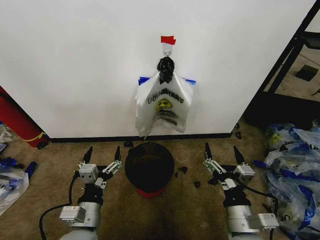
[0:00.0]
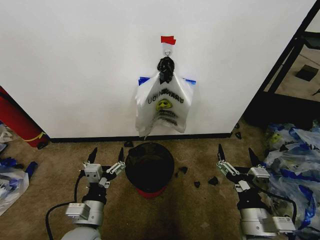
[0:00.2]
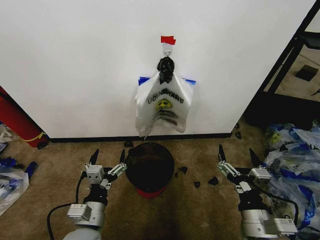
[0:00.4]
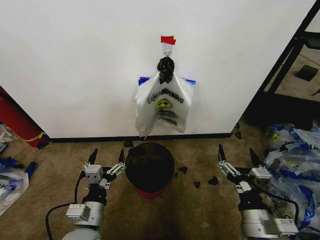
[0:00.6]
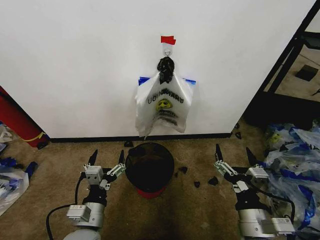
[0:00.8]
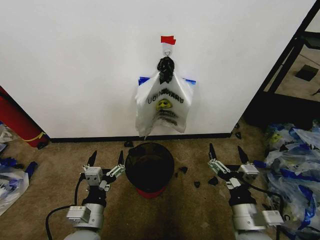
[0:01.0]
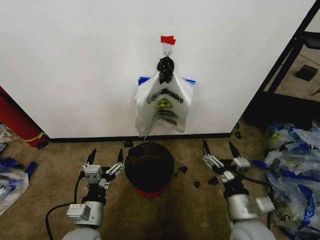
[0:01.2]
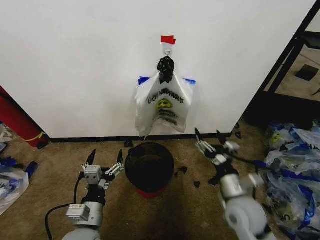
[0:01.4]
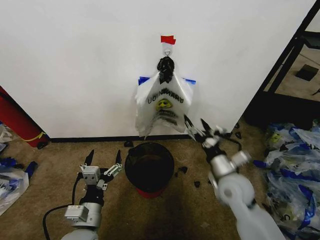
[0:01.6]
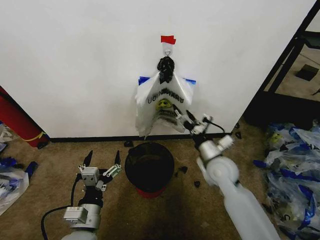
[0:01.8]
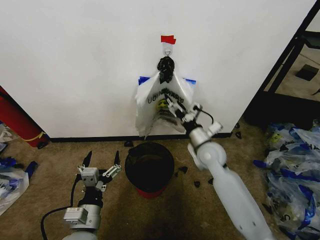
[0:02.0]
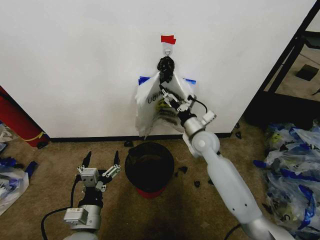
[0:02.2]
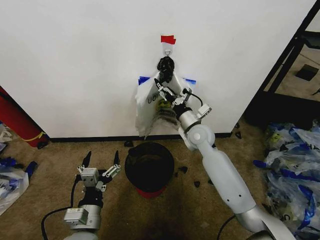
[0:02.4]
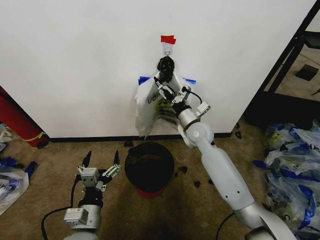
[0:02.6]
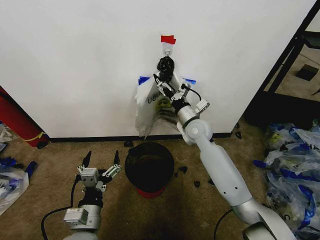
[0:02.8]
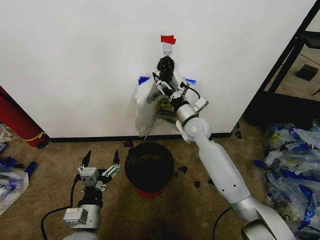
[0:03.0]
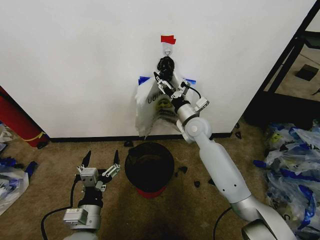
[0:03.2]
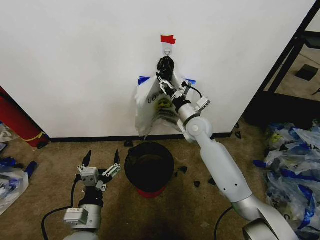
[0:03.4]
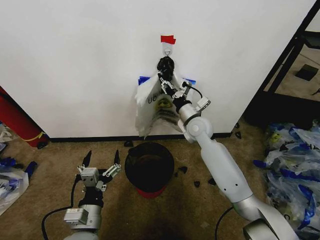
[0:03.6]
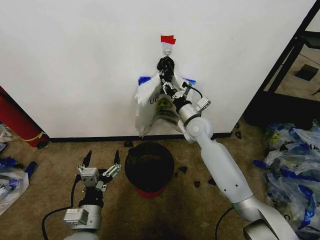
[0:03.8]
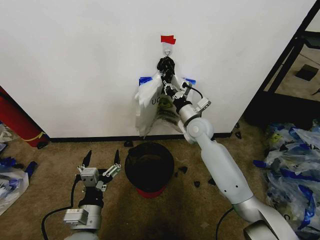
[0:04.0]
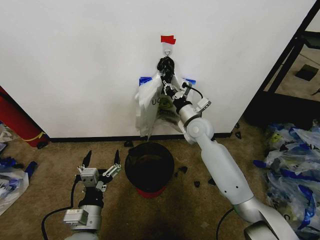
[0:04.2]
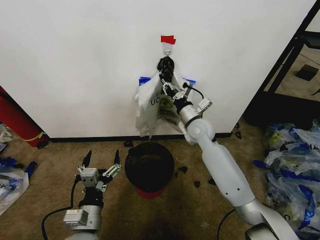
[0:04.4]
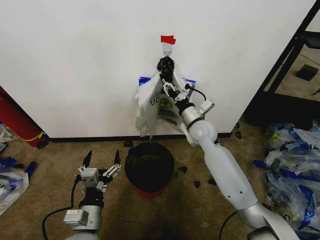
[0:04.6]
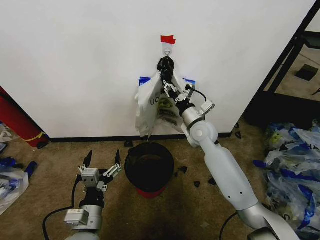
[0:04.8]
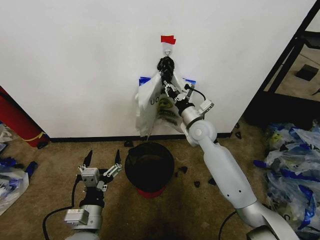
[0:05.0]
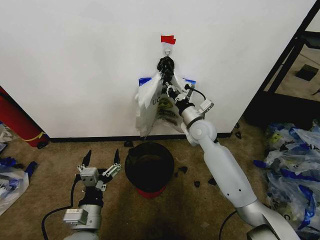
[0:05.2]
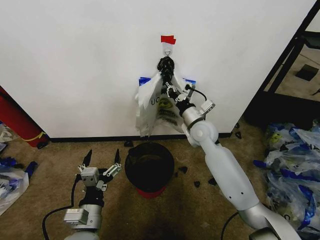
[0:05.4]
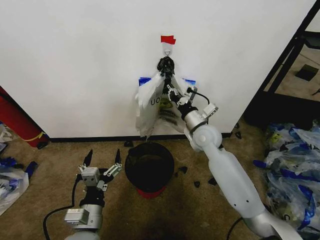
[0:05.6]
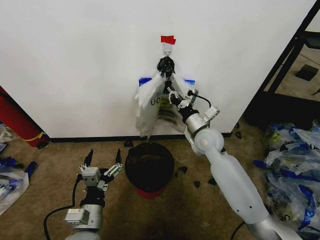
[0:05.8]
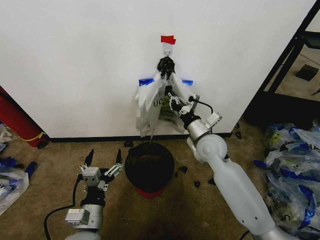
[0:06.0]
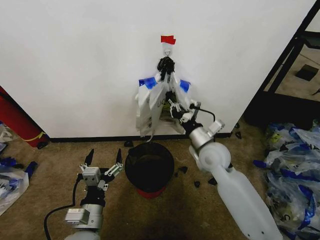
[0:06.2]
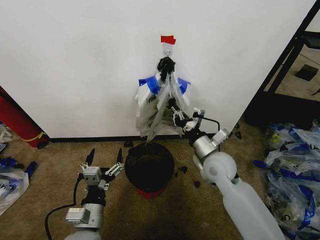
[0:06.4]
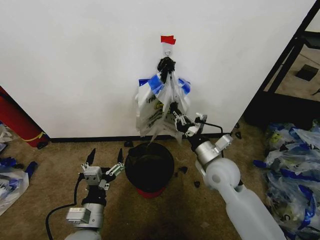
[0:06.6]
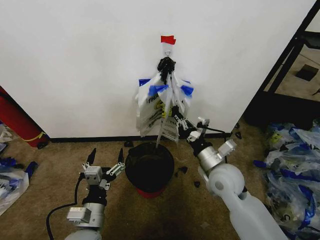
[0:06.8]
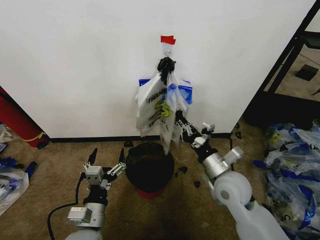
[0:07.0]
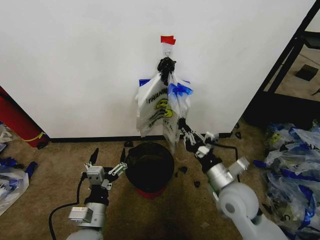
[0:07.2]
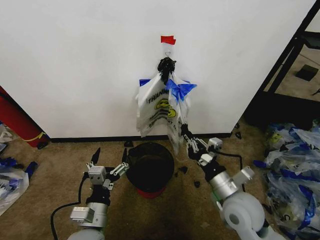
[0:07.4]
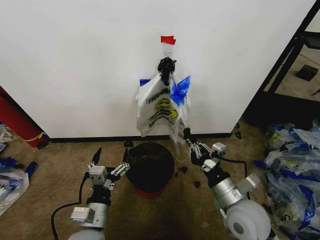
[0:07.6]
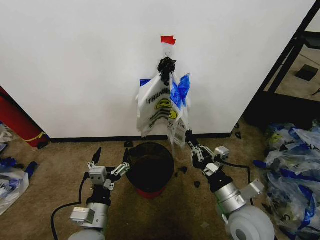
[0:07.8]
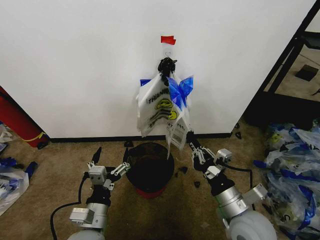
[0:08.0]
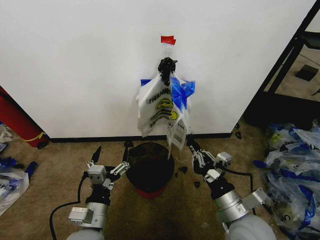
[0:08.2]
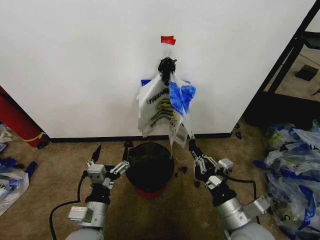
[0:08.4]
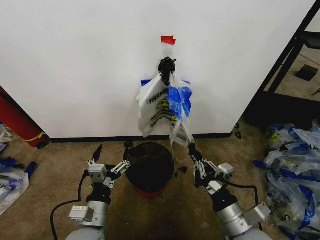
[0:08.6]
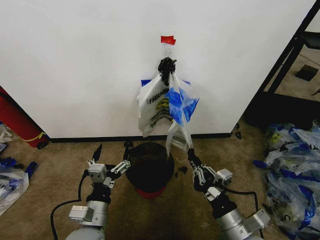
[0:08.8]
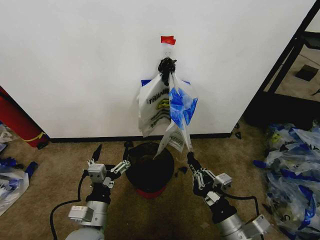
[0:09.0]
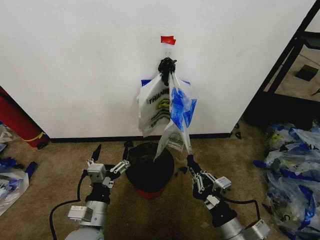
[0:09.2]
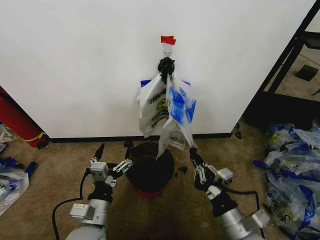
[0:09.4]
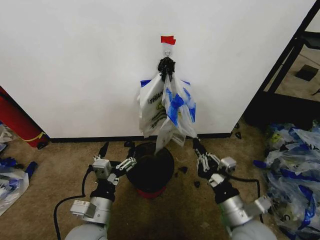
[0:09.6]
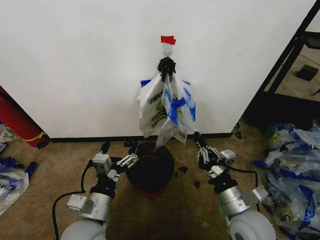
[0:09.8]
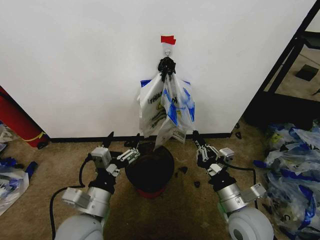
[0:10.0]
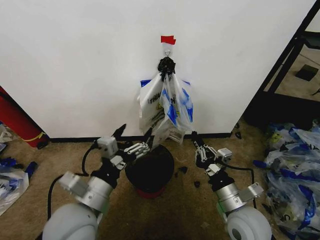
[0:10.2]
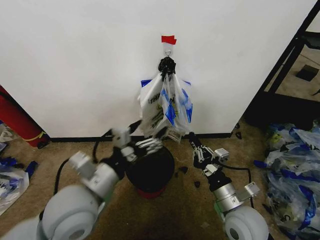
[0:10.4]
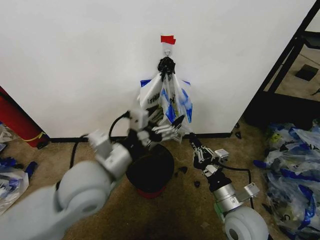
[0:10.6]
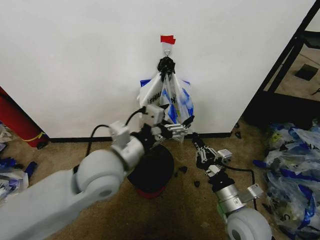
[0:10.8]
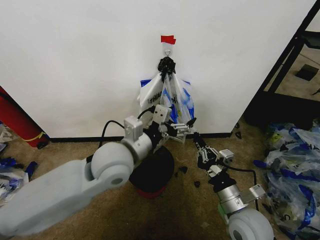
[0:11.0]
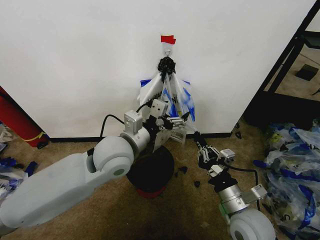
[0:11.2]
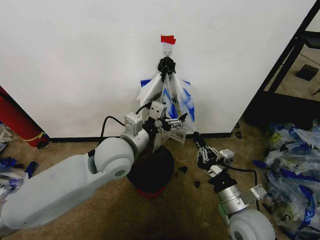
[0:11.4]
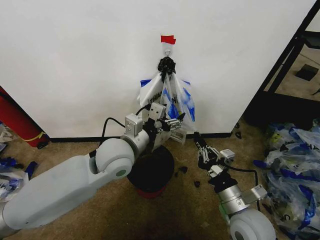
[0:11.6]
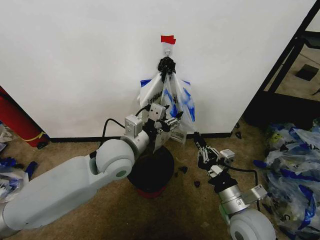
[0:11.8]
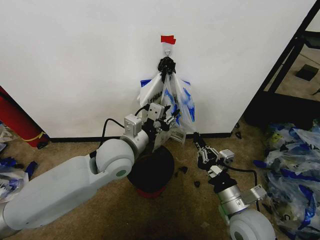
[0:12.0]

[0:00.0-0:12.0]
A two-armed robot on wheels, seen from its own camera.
Task of the whole recording: Pick up the garbage bag from the wall and place it over the trash bin.
0:01.6 to 0:03.0: The right gripper shifts some 20 cm forward and to the left.
0:03.0 to 0:04.4: The right gripper closes.
0:04.4 to 0:06.0: The right gripper moves backward, some 5 cm.
0:06.0 to 0:07.6: The right gripper travels backward by approximately 20 cm.
0:07.6 to 0:09.0: The right gripper heads backward, covering some 10 cm.
0:09.0 to 0:10.4: The left gripper moves upward, roughly 15 cm; the right gripper heads forward, covering about 10 cm.
0:10.4 to 0:12.0: The left gripper is displaced forward and to the right by some 15 cm, and closes.

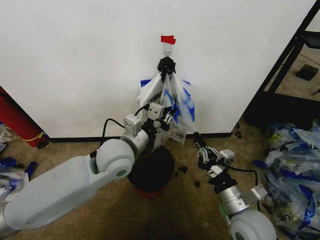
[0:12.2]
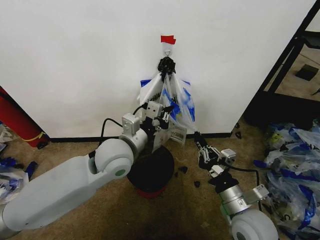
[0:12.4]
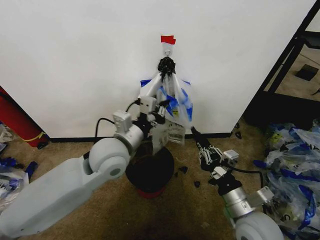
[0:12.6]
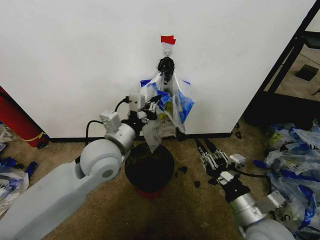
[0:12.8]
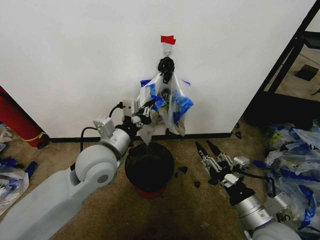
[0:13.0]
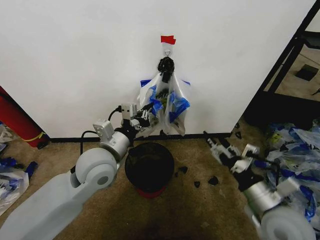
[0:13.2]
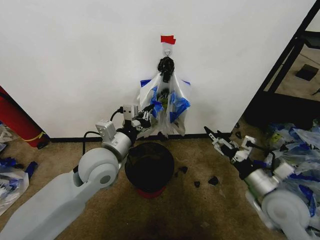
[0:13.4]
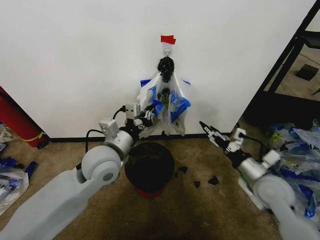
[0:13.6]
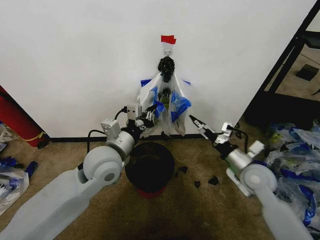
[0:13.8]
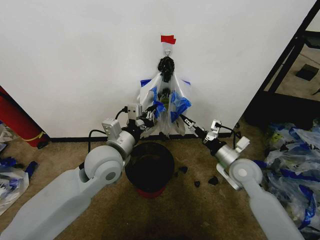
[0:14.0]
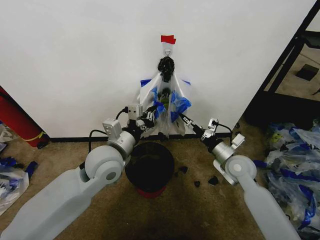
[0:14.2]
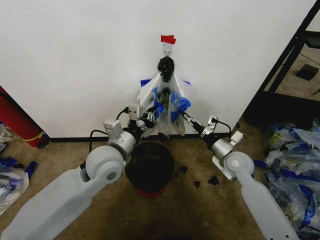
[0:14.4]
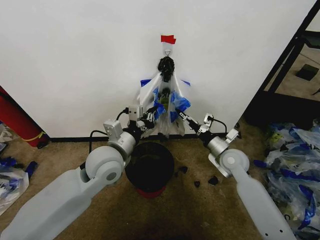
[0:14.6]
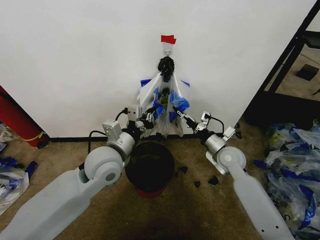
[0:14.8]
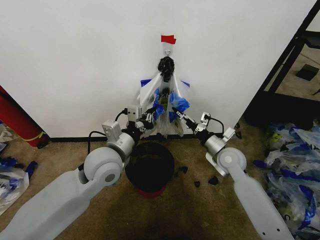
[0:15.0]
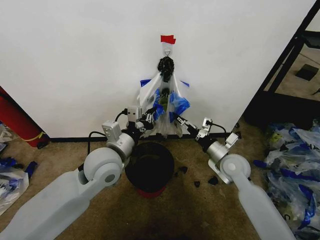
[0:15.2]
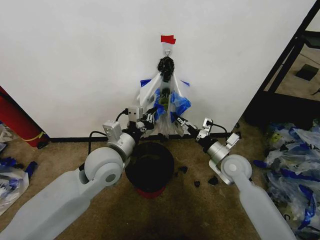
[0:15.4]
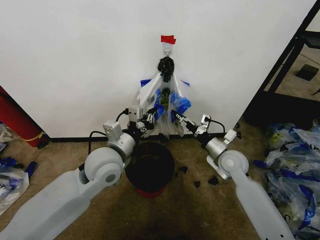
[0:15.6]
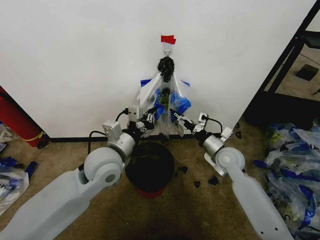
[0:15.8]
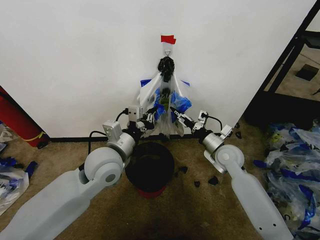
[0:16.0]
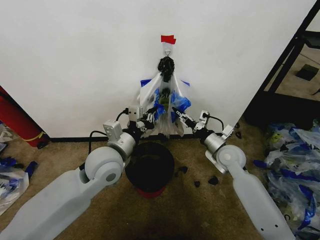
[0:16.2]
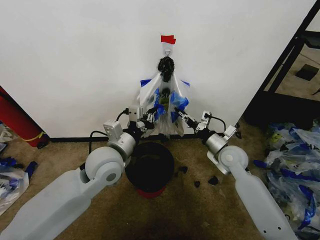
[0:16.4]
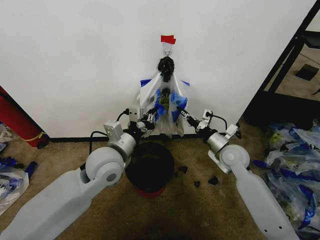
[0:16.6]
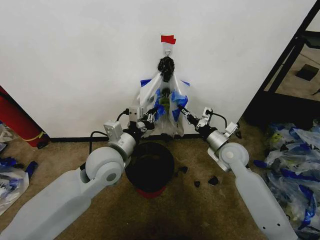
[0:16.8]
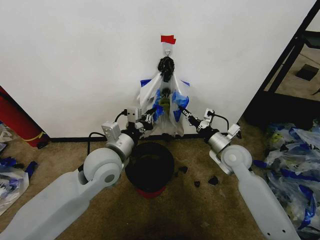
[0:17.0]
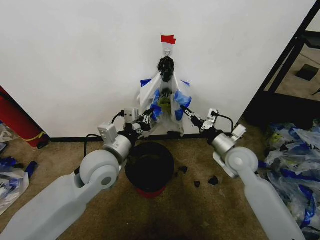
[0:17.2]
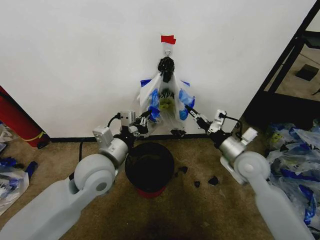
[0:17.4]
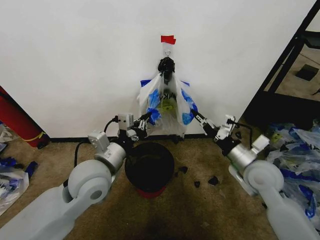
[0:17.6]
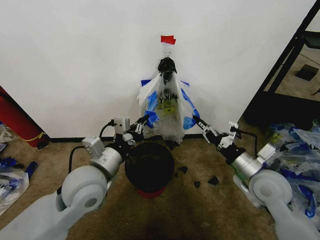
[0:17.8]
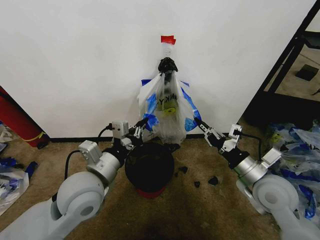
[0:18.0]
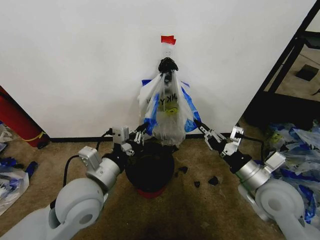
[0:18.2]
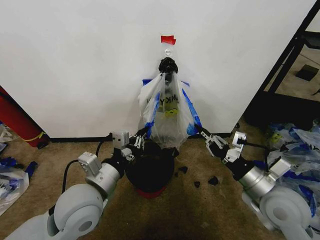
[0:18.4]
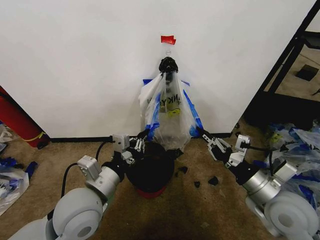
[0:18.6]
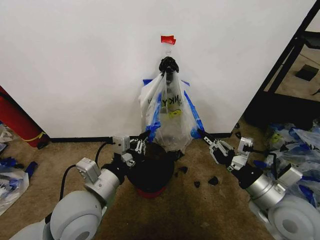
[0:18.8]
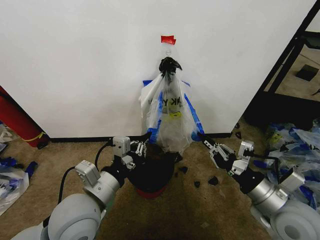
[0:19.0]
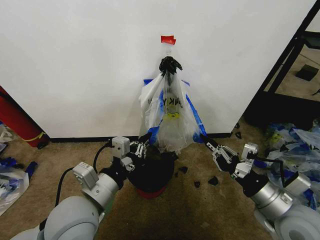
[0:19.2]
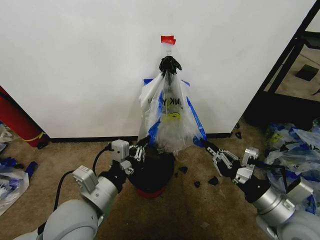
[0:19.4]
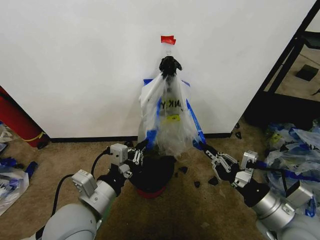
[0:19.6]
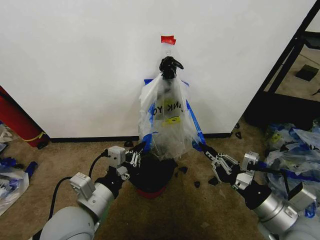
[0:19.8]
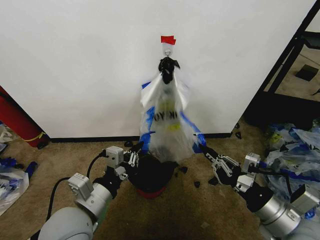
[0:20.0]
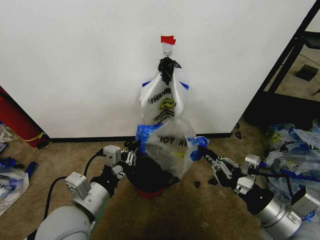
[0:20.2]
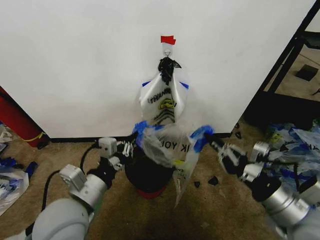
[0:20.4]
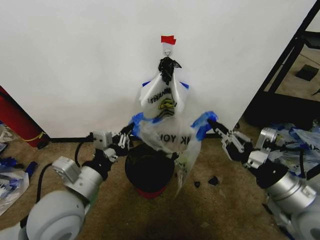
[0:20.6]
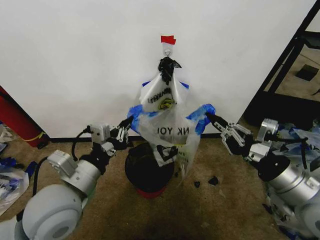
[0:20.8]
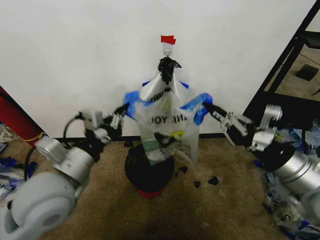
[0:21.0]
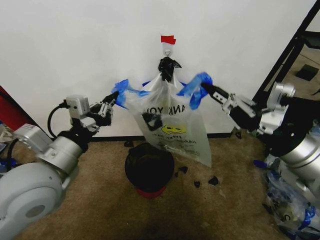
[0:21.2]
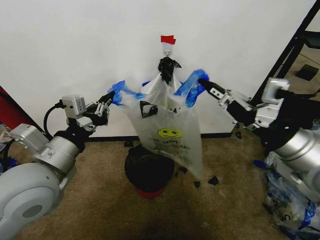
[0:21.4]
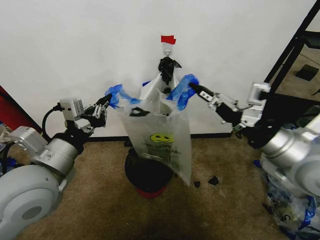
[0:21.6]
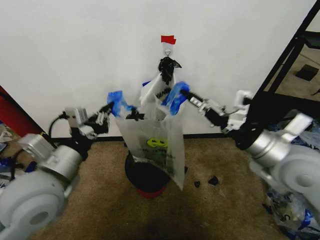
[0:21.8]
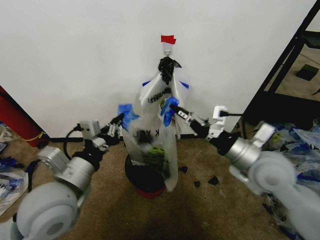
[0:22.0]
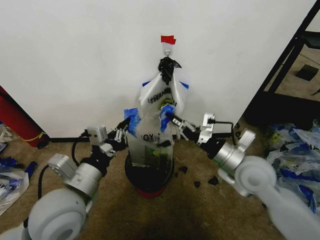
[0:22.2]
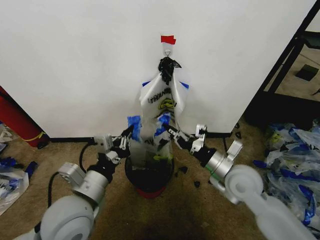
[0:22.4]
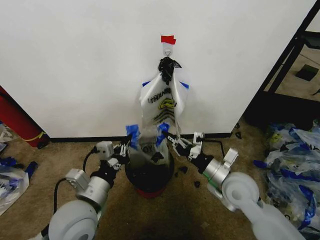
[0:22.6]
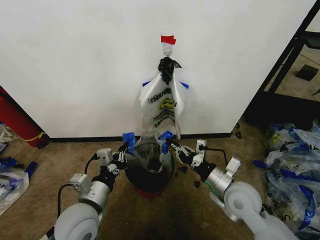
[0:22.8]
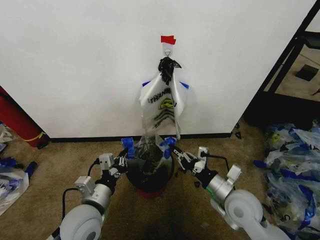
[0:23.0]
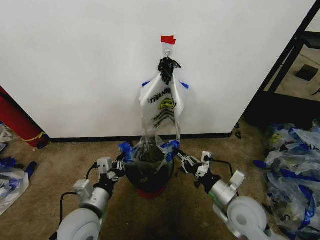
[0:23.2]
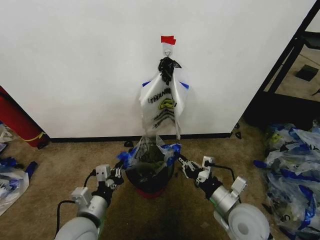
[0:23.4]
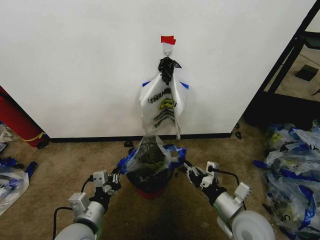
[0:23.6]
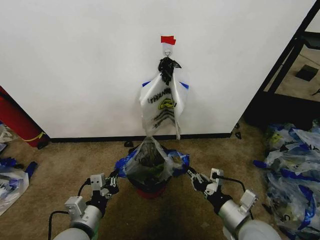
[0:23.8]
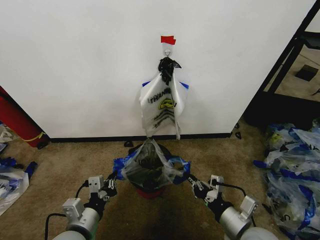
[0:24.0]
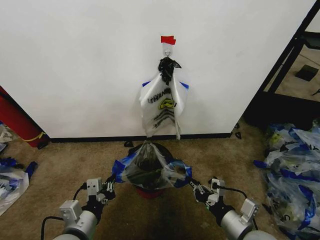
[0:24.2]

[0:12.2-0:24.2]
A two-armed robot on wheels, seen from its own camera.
Task of the whole recording: Pick up the garbage bag from the wall and place it over the trash bin.
0:12.2 to 0:13.8: The right gripper shifts some 15 cm forward and to the right, and opens up.
0:13.8 to 0:15.2: The right gripper goes about 5 cm forward.
0:15.2 to 0:16.6: The right gripper closes up.
0:16.6 to 0:18.2: The left gripper travels backward by roughly 10 cm. The right gripper travels backward by approximately 15 cm.
0:18.2 to 0:19.8: The left gripper heads backward, covering roughly 5 cm; the right gripper heads backward, covering roughly 10 cm.
0:19.8 to 0:21.2: The left gripper is displaced upward and to the left by some 10 cm, while the right gripper goes some 15 cm upward and forward.
0:21.2 to 0:22.6: The left gripper travels downward by roughly 15 cm. The right gripper is displaced downward and to the left by approximately 20 cm.
0:22.6 to 0:24.2: The left gripper shifts roughly 10 cm backward and downward. The right gripper moves backward, some 15 cm.
